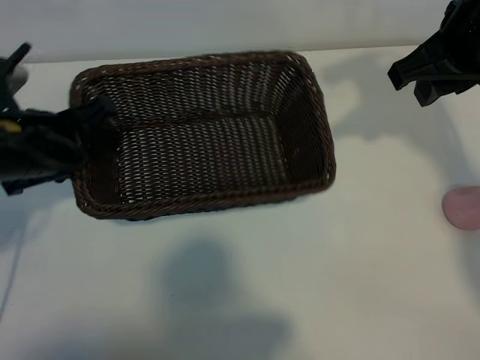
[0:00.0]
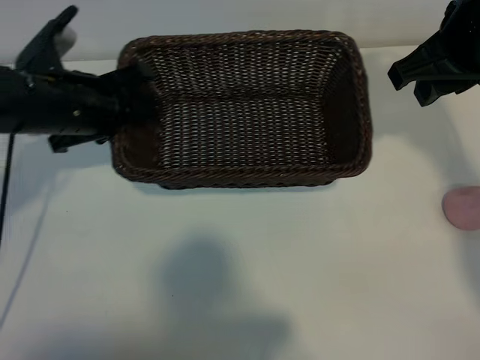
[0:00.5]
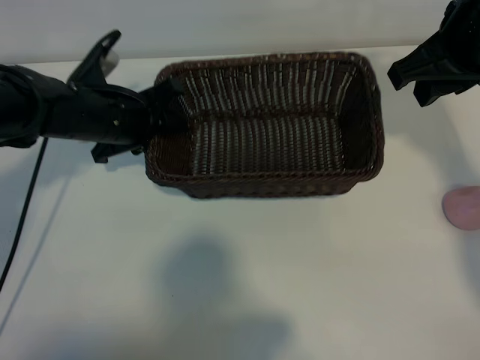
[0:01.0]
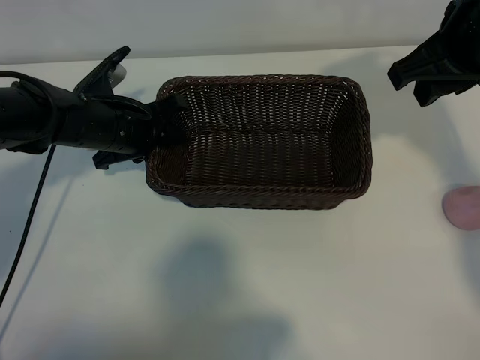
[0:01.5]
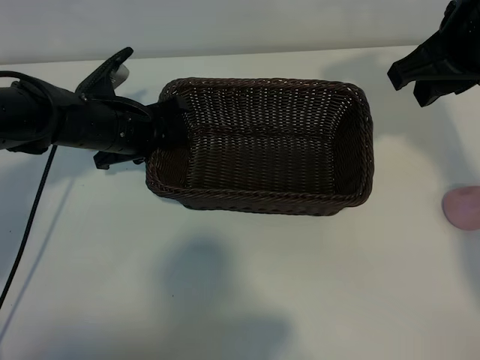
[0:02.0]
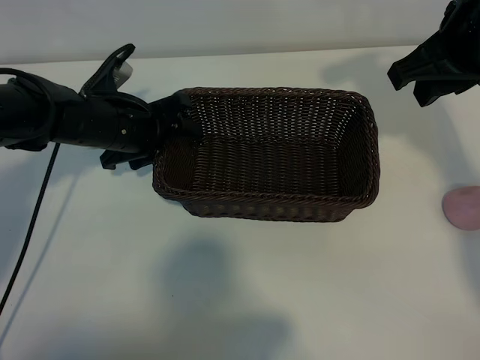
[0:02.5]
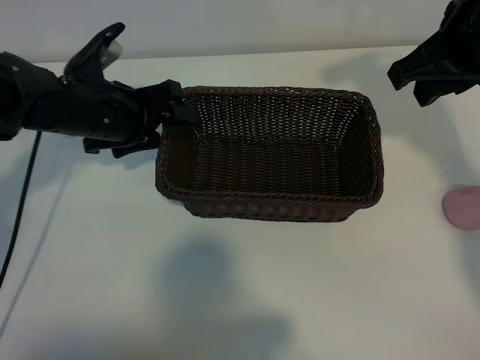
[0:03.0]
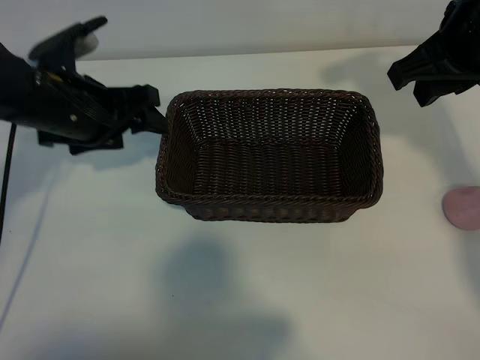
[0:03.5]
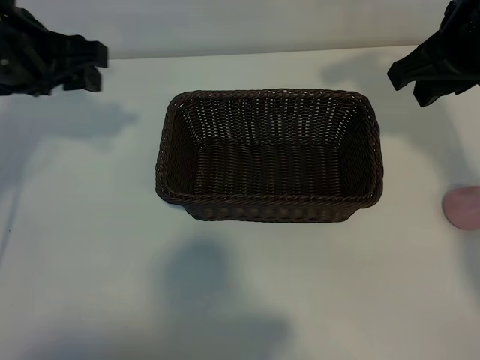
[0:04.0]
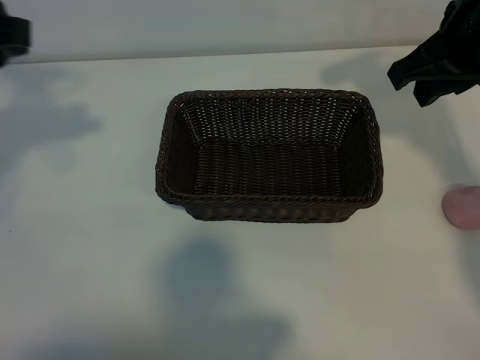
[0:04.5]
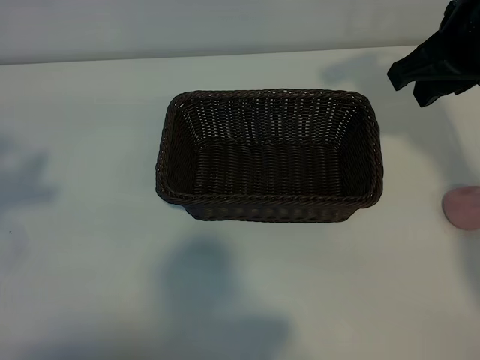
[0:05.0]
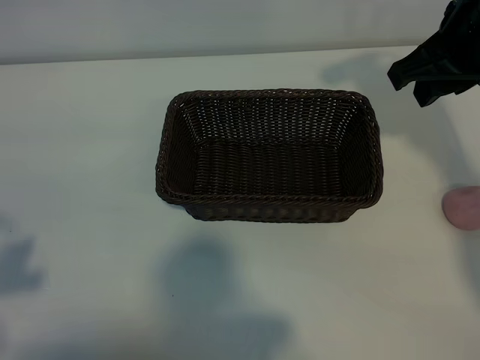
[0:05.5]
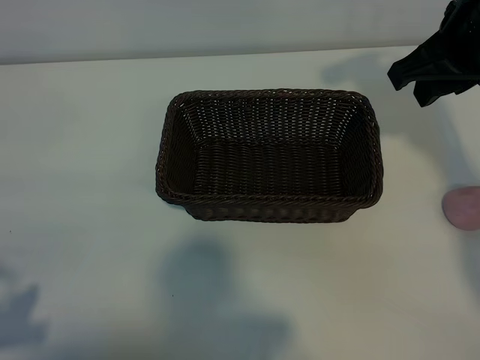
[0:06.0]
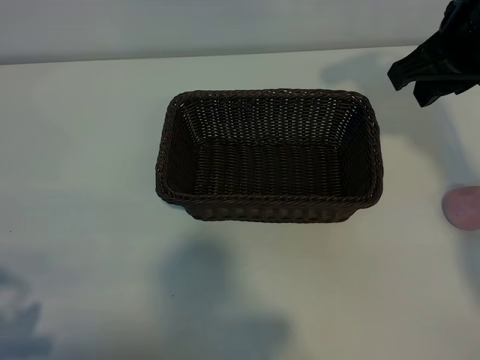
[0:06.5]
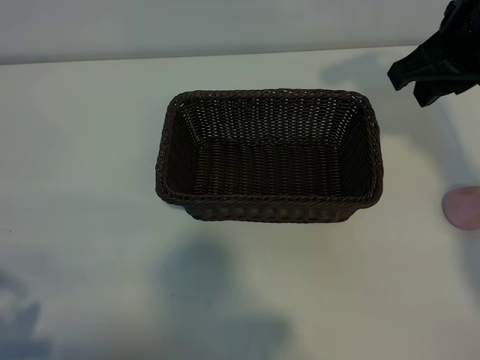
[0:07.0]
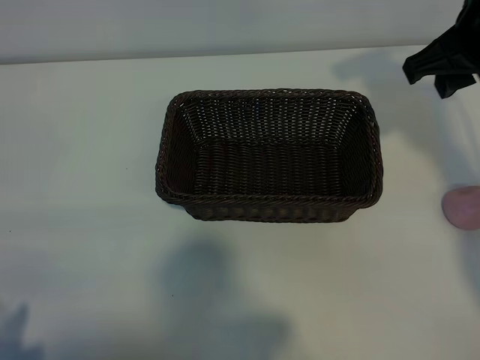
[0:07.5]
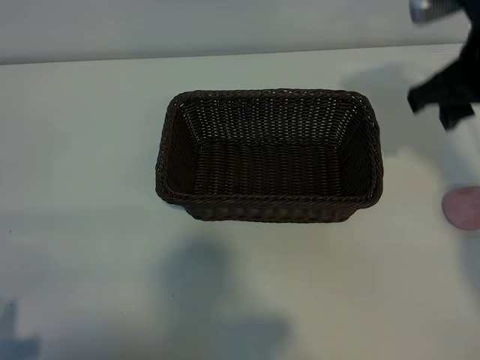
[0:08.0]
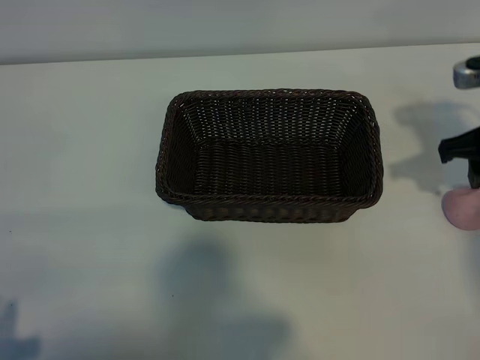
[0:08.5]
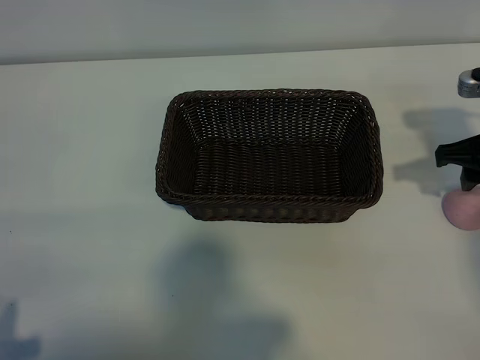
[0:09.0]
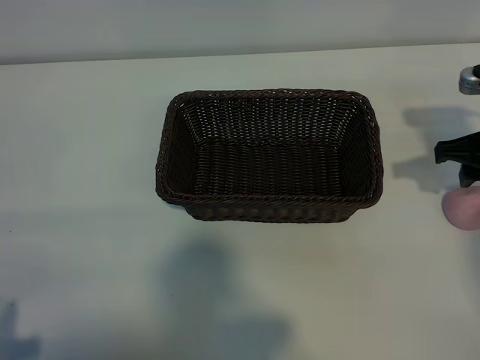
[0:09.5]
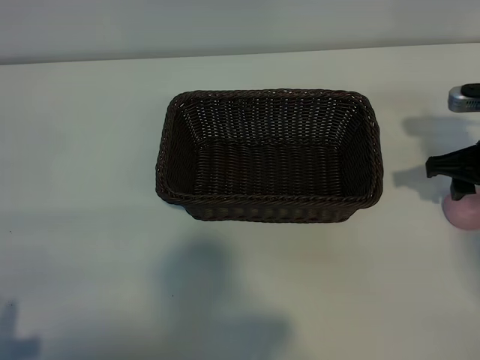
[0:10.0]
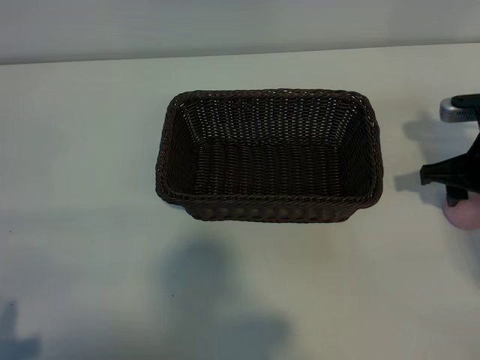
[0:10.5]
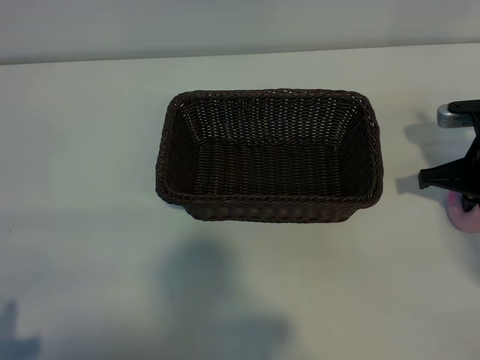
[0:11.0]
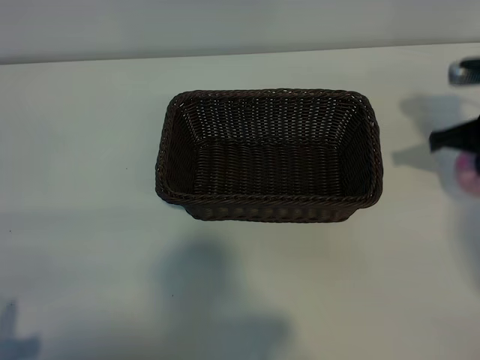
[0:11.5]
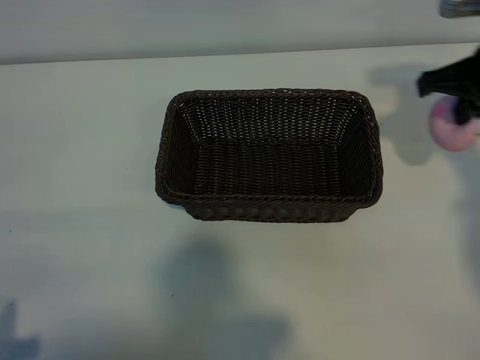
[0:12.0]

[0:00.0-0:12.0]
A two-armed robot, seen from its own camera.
Task of the whole recording: pick up the peach and put it into the basket.
Step, 0:00.0 to 0:03.0: Place the basket in the center of view with left gripper.
Step, 0:03.5 to 0:11.0: Grasp the peach with right gripper.
